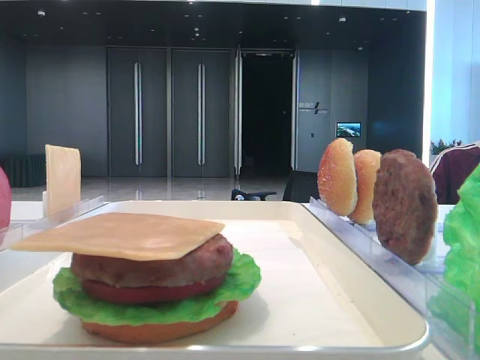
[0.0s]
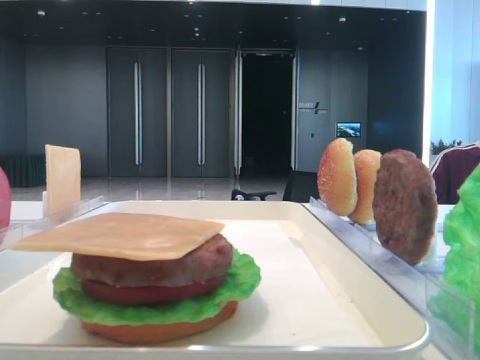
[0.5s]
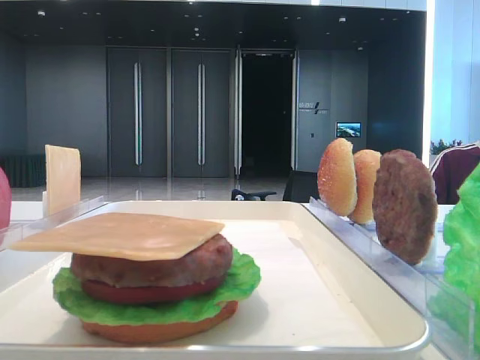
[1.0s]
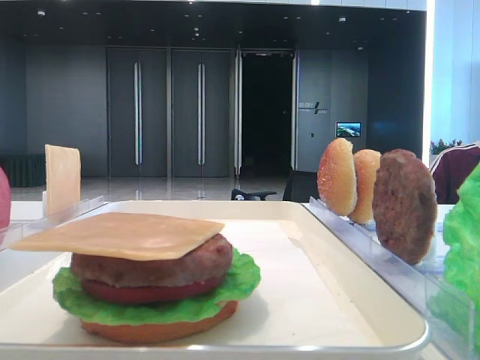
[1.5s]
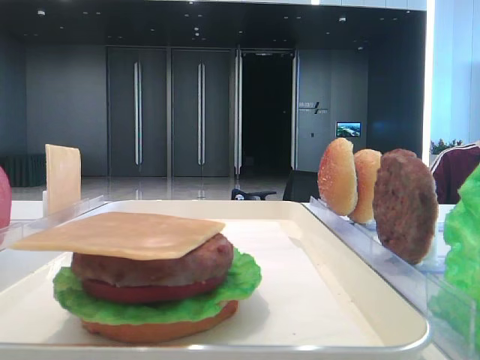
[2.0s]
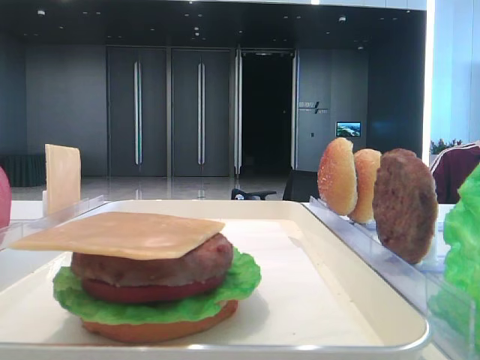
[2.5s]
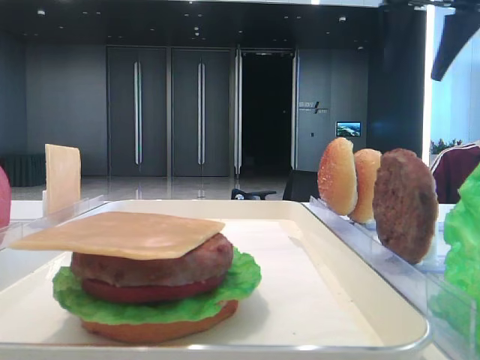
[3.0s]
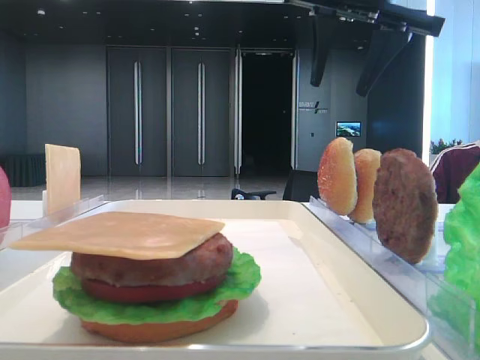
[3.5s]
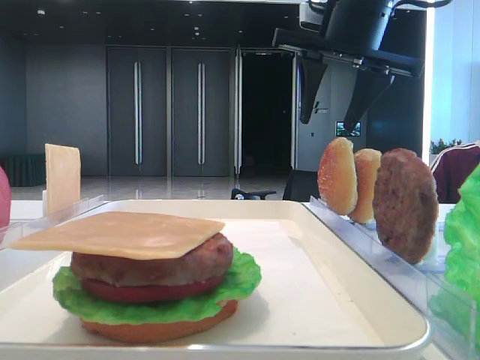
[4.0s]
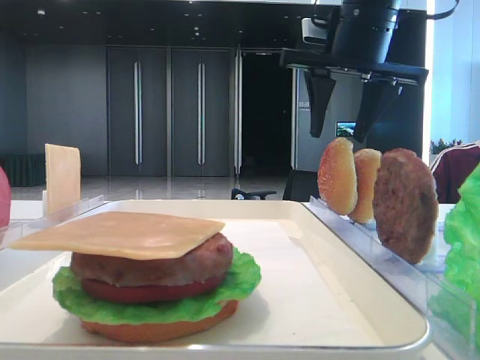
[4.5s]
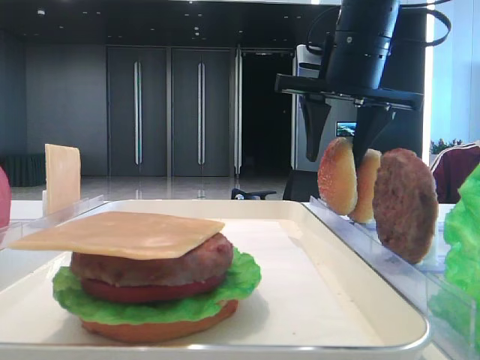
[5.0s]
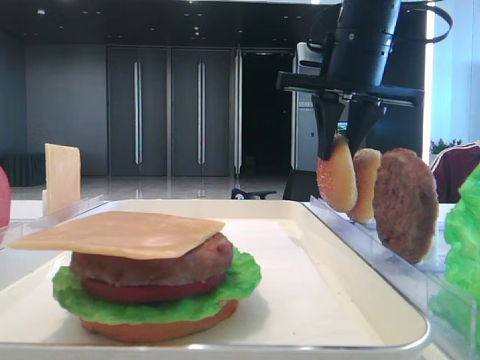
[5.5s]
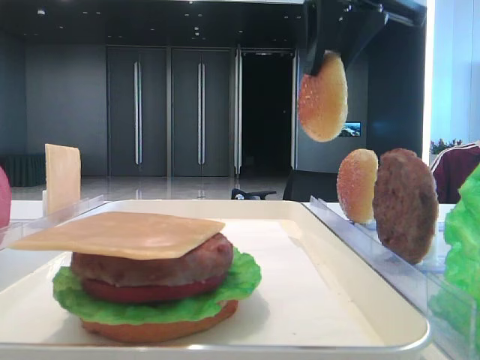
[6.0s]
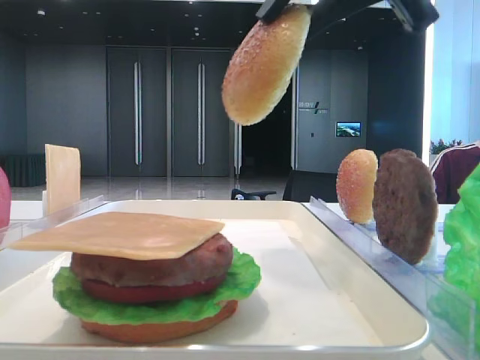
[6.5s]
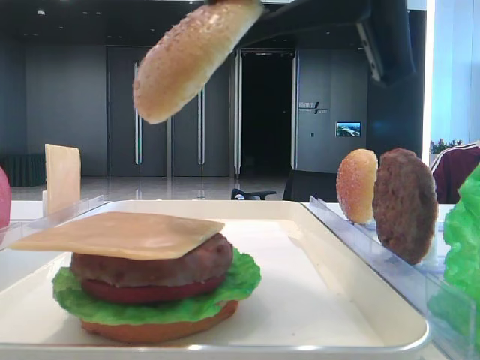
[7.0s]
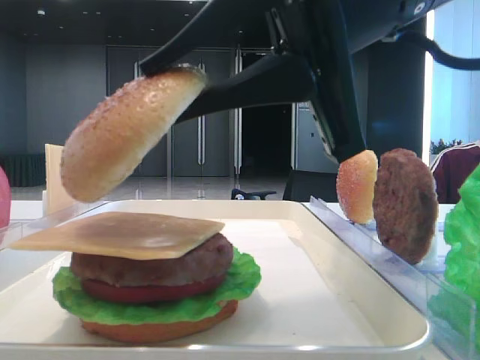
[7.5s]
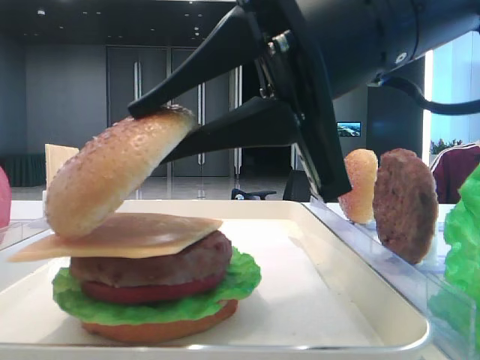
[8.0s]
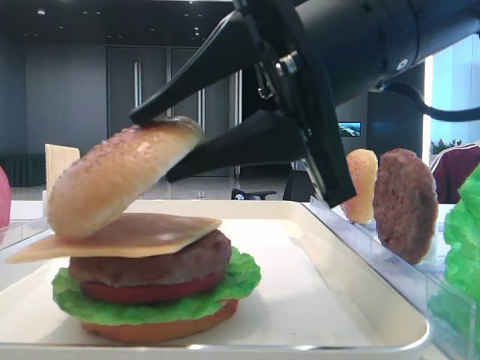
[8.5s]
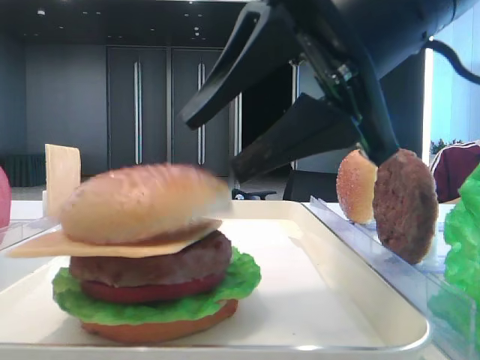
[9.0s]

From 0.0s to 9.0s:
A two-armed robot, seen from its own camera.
Step, from 0.0s to 5.0s: Pick up the top bread slice with the right hand.
Step, from 5.5s to 8.5s: Place the top bread slice on the cheese with the right hand.
From 2.0s to 4.5s: The right gripper heads to the left, forward and downward, covering approximately 25 cm.
From 4.5s to 7.0s: The right gripper travels backward by some 20 cm, and closes its fingers.
From 7.0s to 9.0s: The right gripper opens.

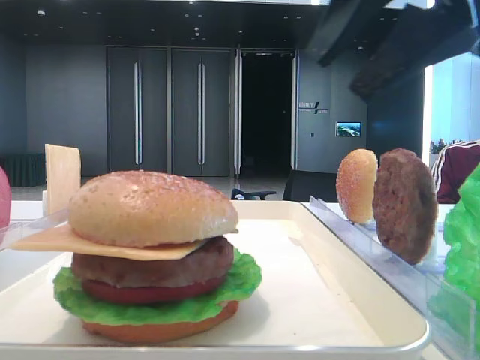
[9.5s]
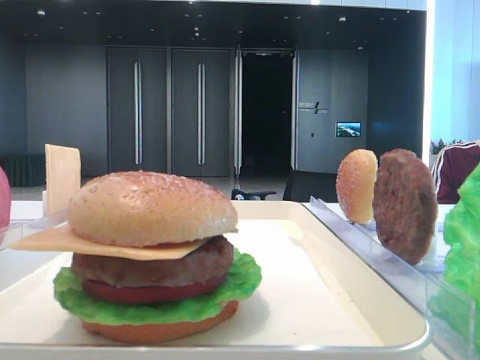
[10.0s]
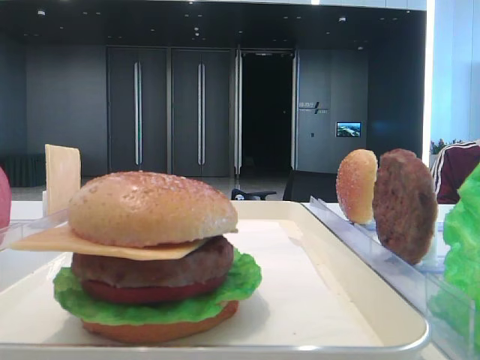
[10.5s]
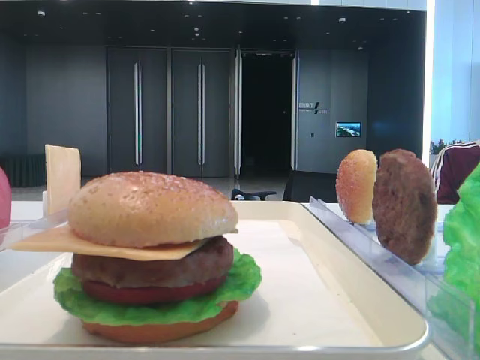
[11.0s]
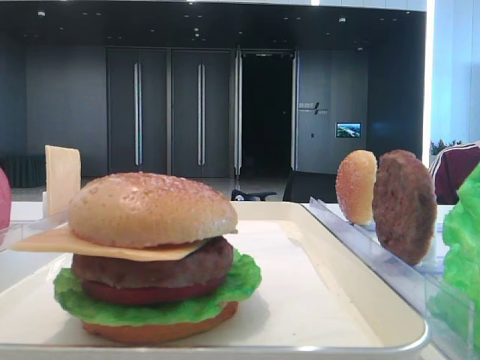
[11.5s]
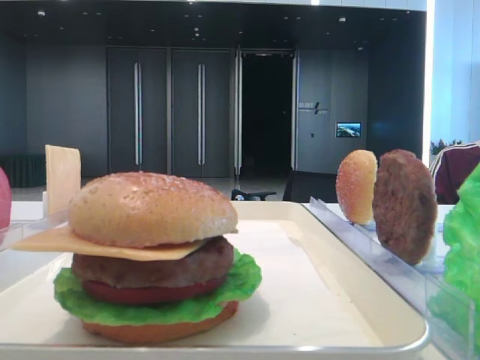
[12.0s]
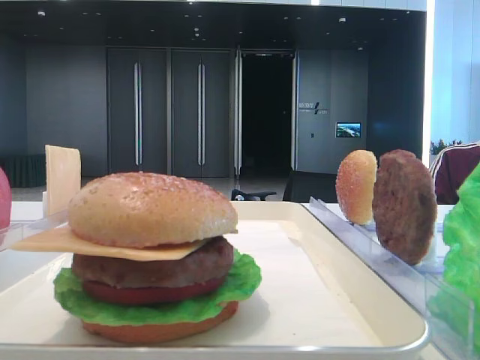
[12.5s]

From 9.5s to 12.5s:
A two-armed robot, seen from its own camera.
From 9.5s to 11.0s: The right gripper moves backward and to the right, some 20 cm.

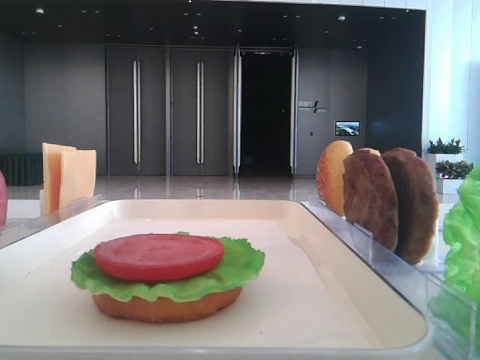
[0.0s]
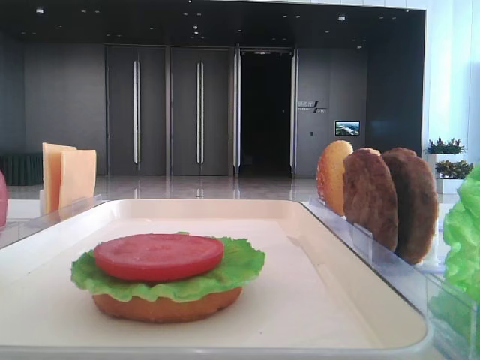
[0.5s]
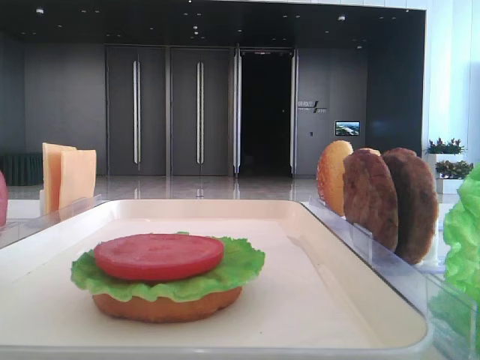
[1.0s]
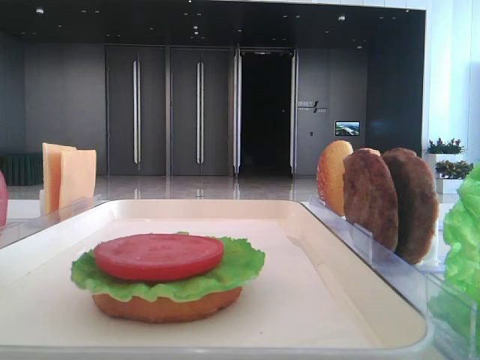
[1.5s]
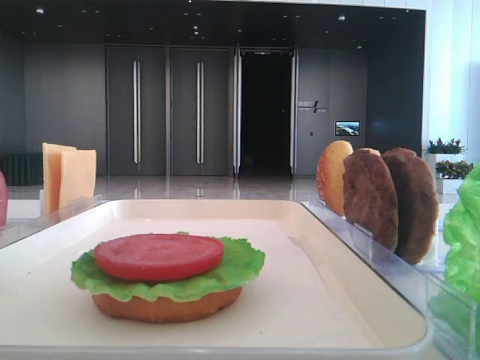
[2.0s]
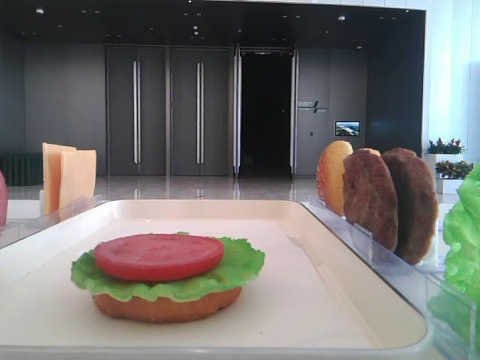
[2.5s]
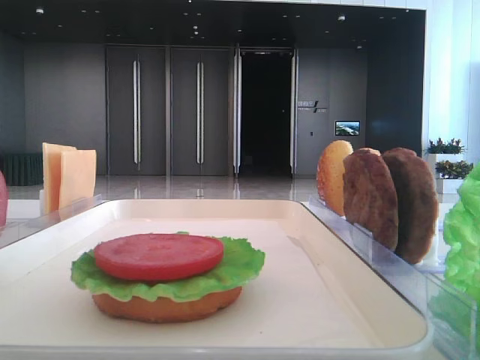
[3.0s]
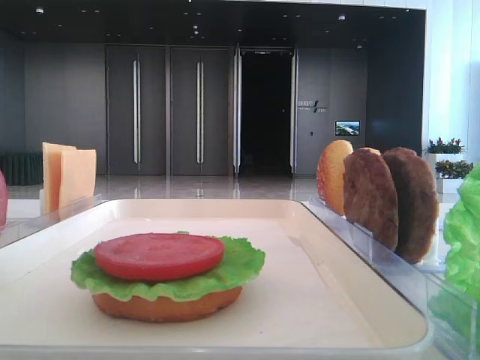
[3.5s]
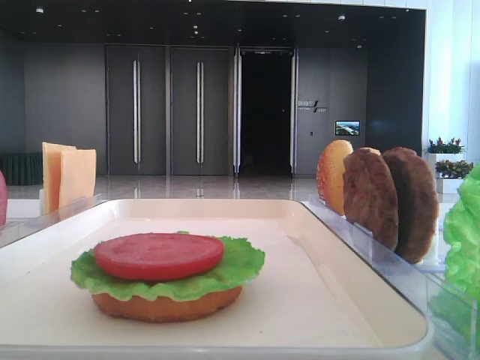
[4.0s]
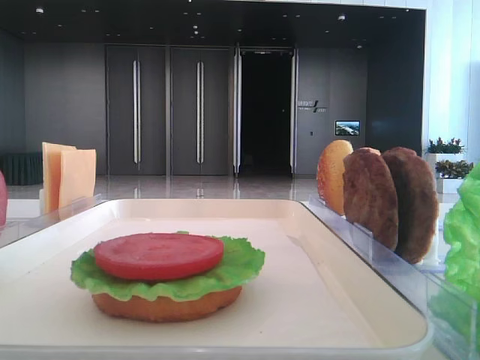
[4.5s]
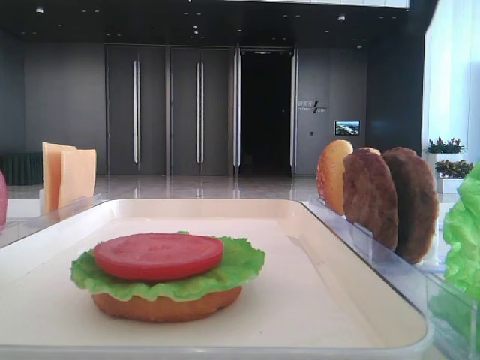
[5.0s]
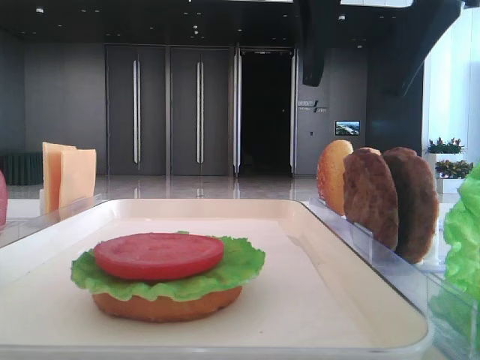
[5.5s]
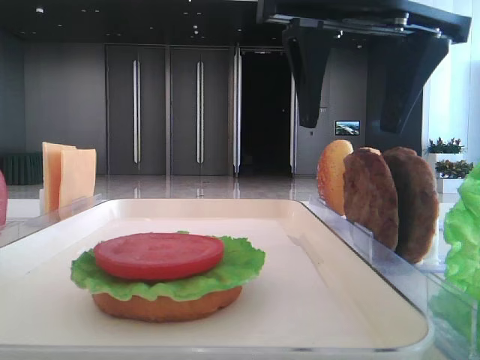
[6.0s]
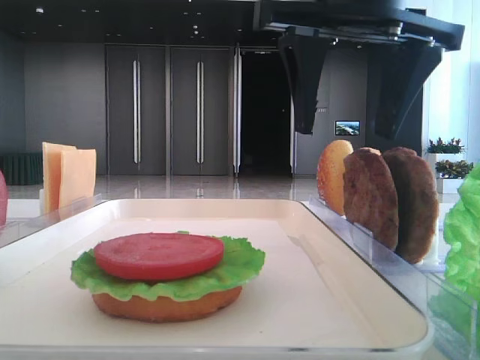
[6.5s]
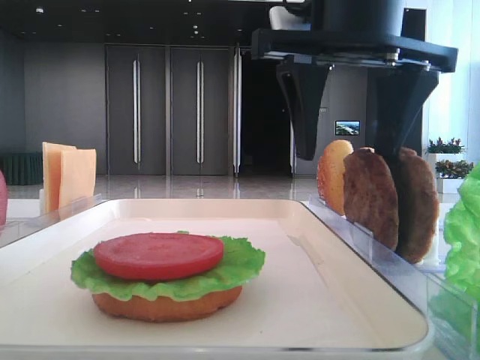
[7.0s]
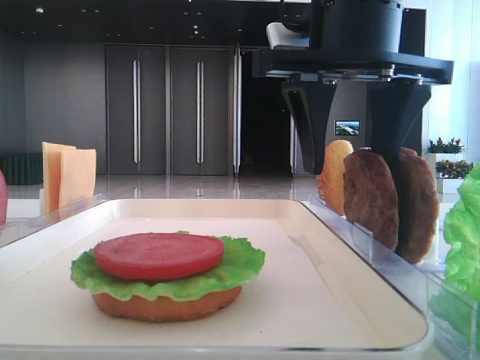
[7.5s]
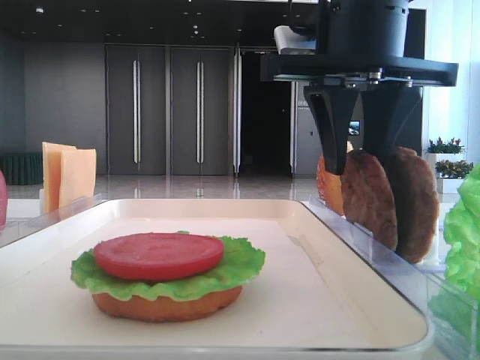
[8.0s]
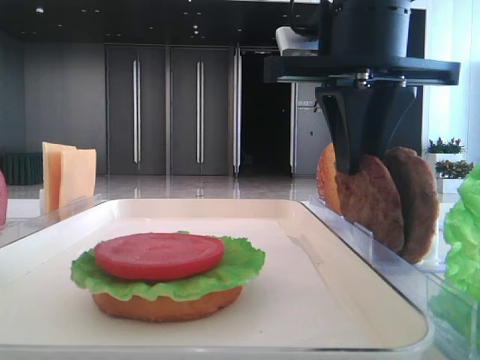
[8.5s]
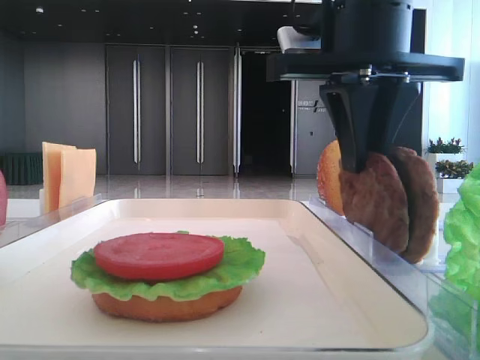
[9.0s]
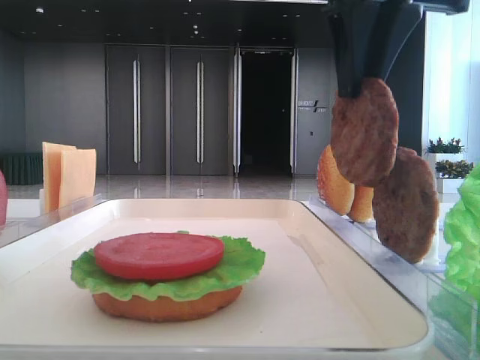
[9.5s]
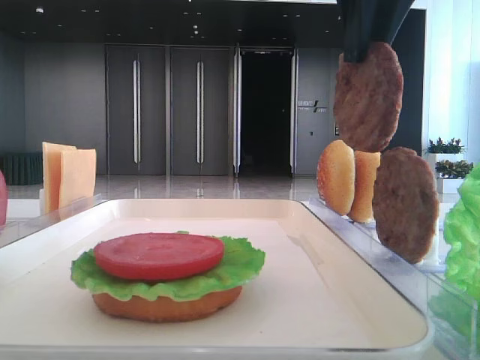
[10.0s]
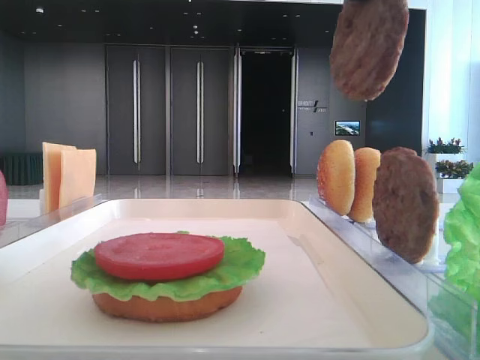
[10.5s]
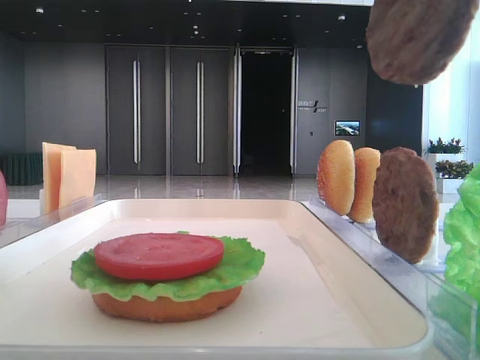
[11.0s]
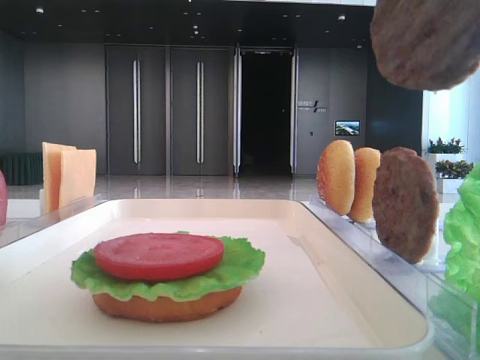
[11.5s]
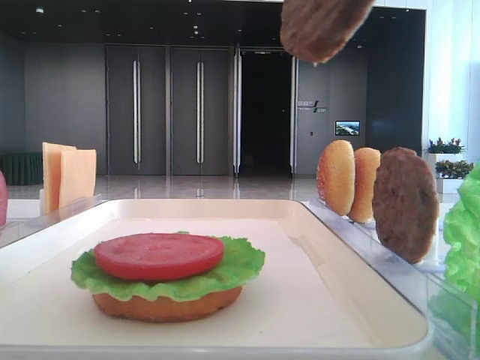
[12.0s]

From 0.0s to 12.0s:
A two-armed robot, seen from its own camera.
Step, from 0.0s to 8.0s: Grab the patty with the right hand.
From 4.0s to 6.0s: The right gripper travels to the left by approximately 20 cm.
From 6.0s to 8.0s: The right gripper closes its fingers.
From 8.0s to 10.0s: The right gripper shifts some 10 cm upward, and closes its fingers.
From 10.0s to 12.0s: The right gripper shifts approximately 10 cm backward.

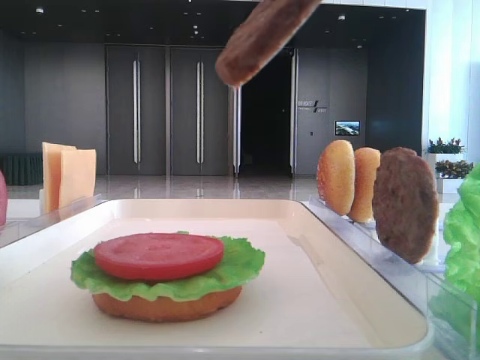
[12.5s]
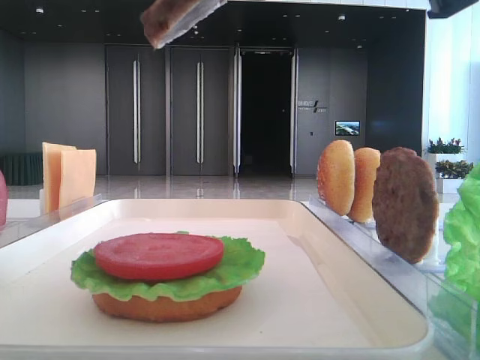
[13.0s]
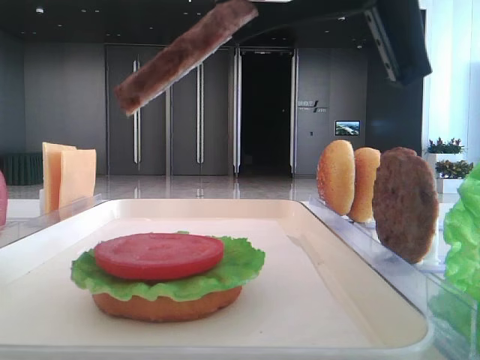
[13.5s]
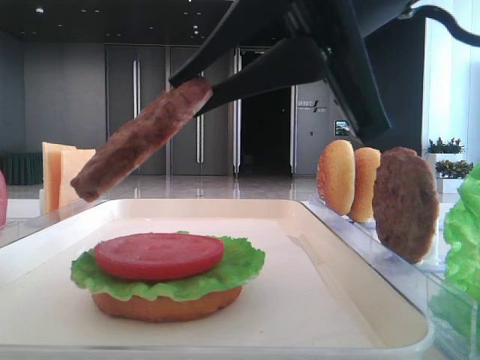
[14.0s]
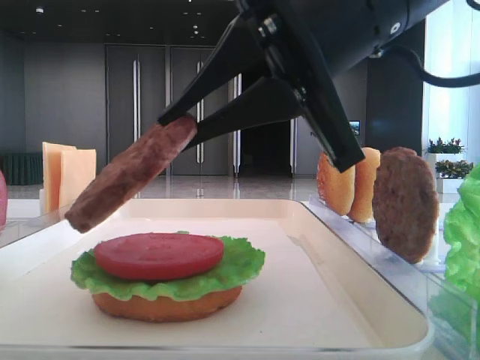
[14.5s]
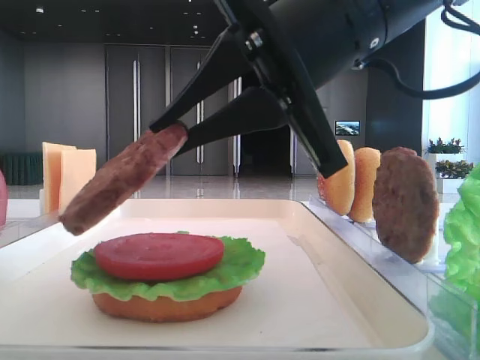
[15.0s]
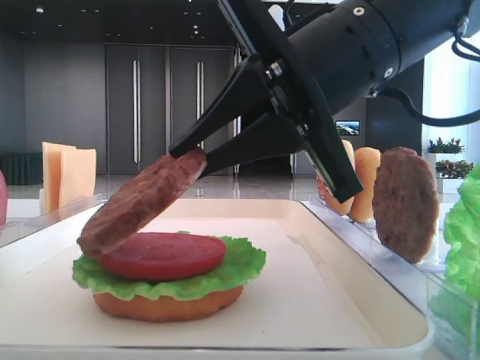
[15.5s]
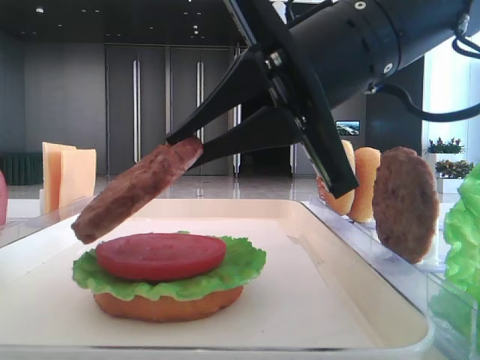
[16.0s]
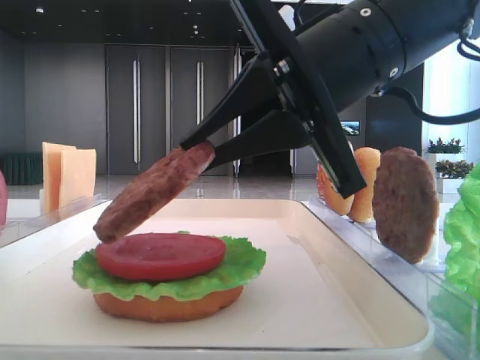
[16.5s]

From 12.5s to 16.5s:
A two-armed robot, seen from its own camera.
From 12.5s to 14.5s: The right gripper moves downward and to the left, some 10 cm.
From 14.5s to 16.5s: The grippers make only small movements.
